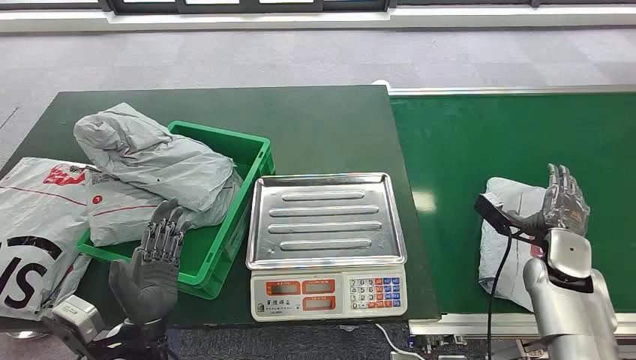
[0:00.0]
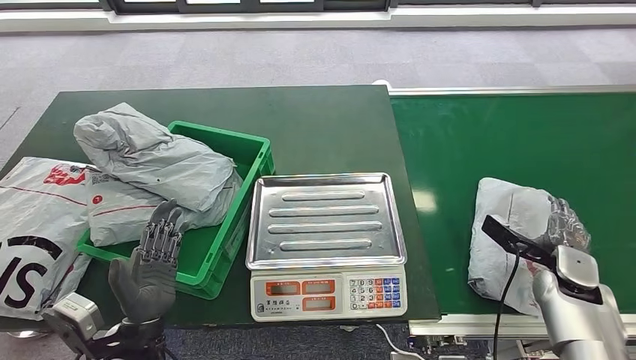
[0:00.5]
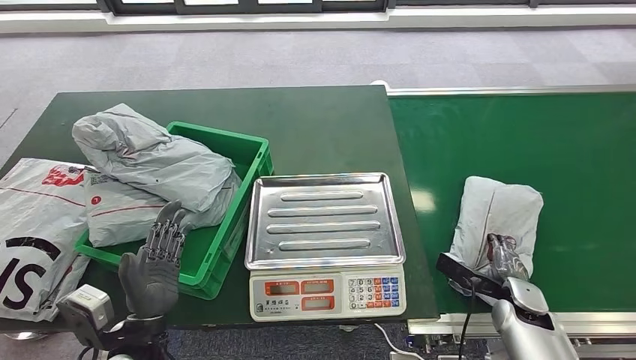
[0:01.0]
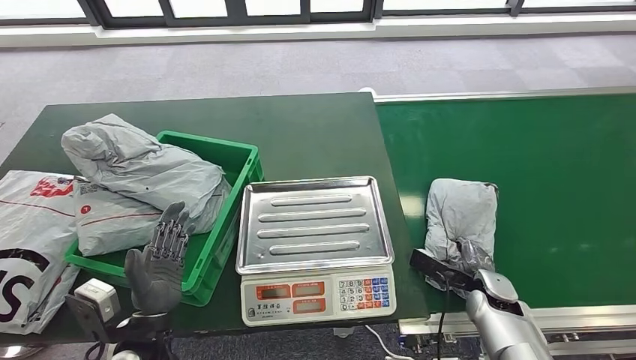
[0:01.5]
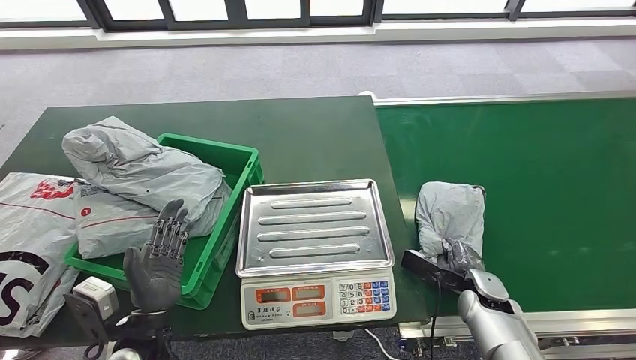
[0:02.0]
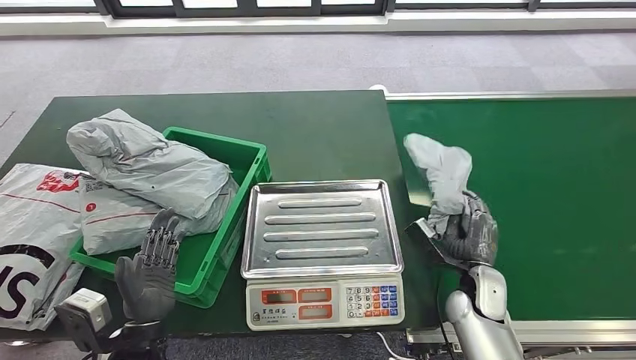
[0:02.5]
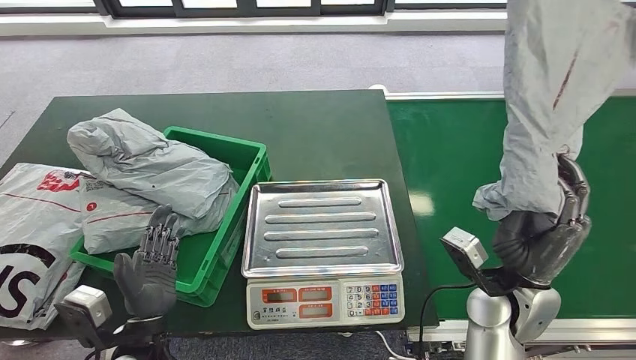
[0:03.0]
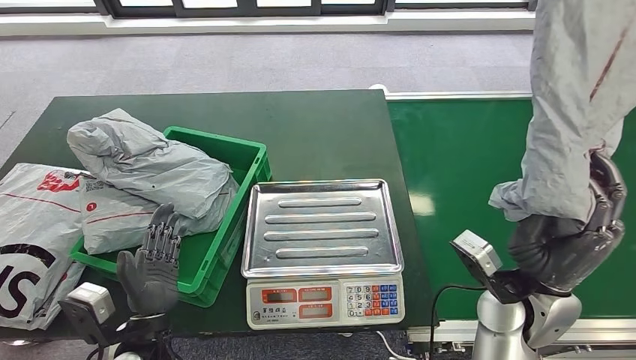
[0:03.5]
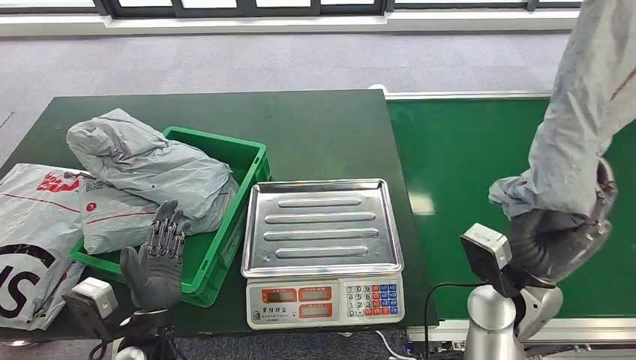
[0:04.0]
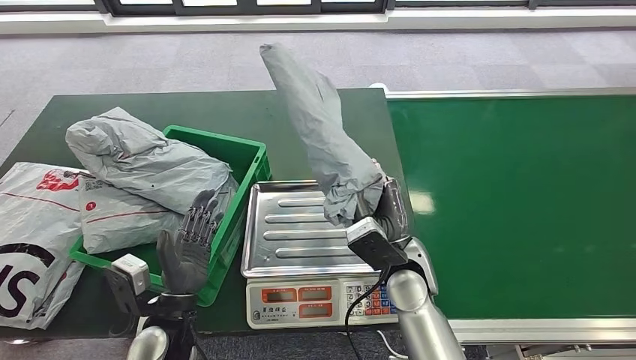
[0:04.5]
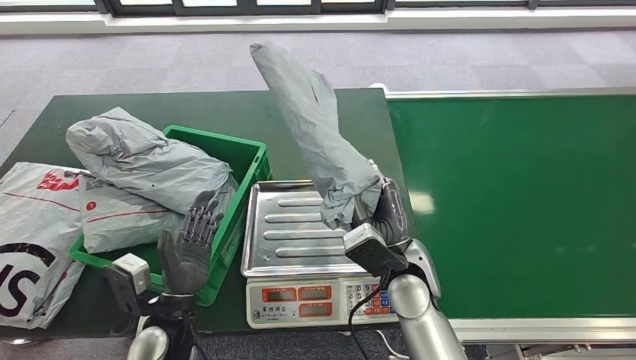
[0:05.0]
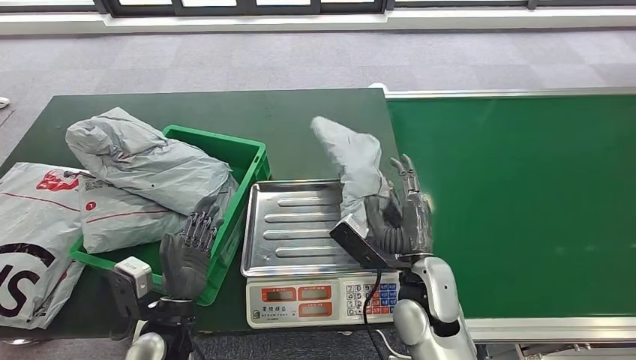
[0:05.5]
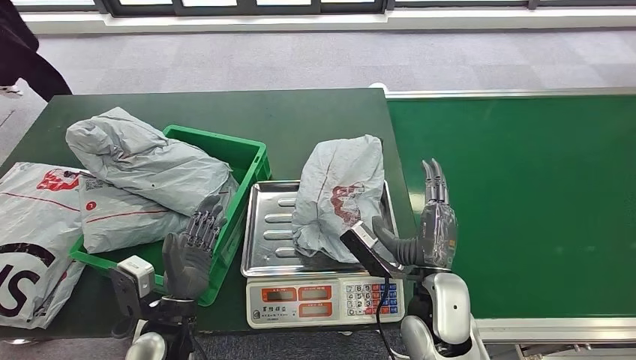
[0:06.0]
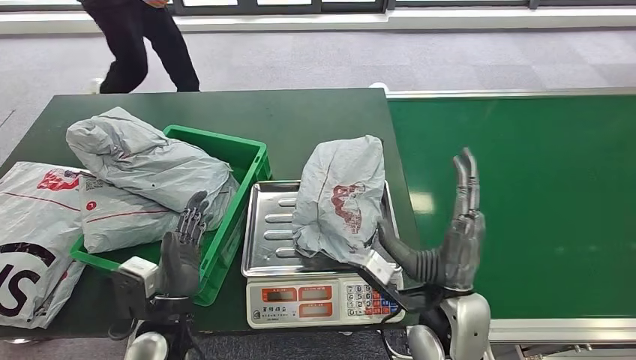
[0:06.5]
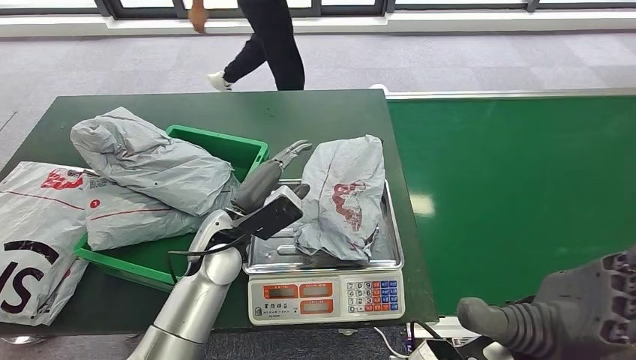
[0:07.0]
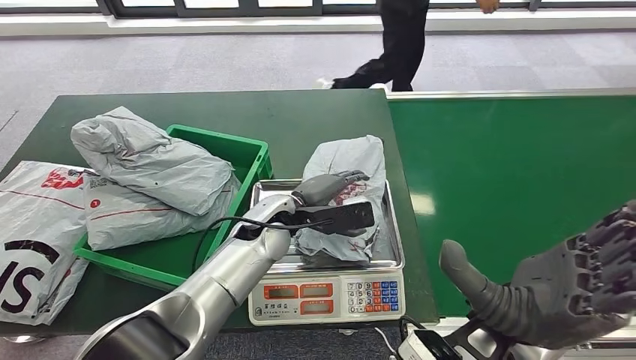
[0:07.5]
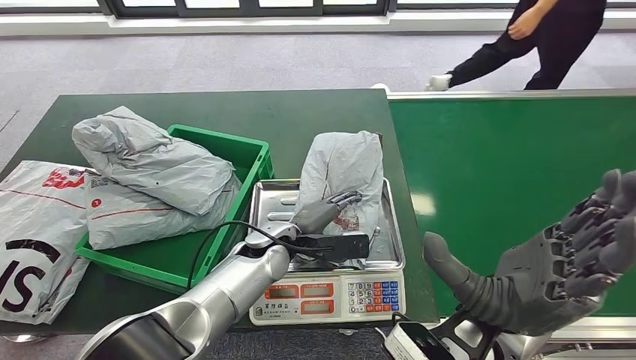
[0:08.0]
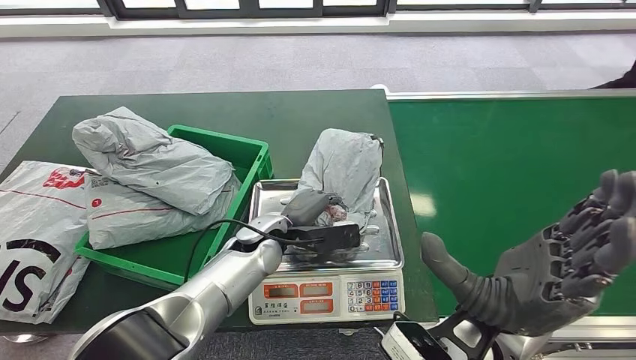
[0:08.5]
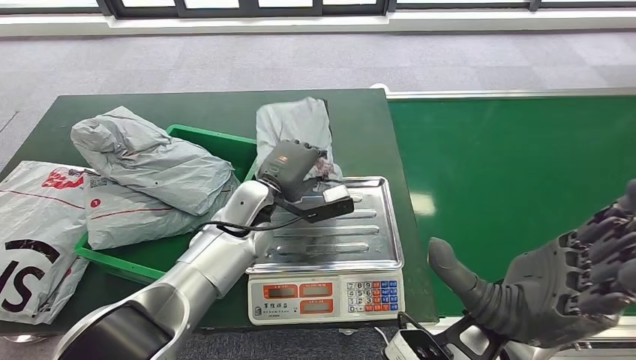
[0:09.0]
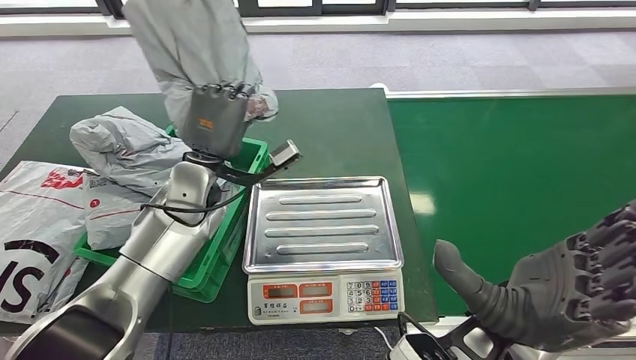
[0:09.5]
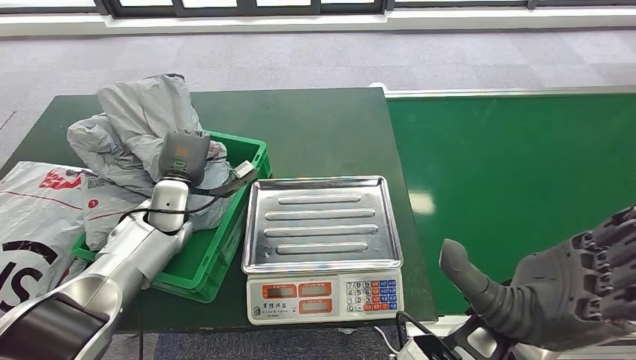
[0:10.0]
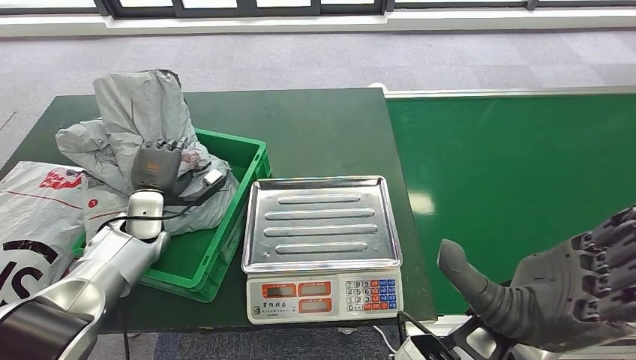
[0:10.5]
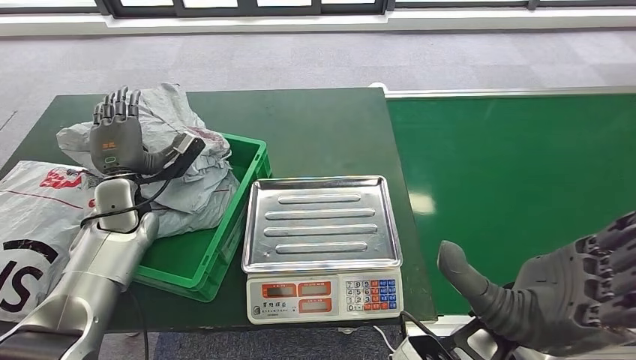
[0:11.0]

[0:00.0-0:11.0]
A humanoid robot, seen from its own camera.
Task of the whole recording: Weigh the package on the weighing device and place it in the left basket.
Step, 0:00.0 to 0:02.5: Pick up the package from the conveyor belt.
Step, 0:03.0 to 0:05.5: Place the package onto the inbound machine.
Step, 0:06.0 to 0:09.0: Pick up the package from the inbound machine.
Step, 0:09.5 to 0:11.0: Place the package into the parcel locker.
